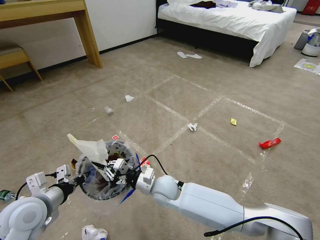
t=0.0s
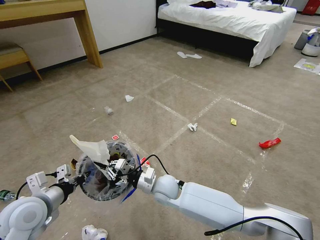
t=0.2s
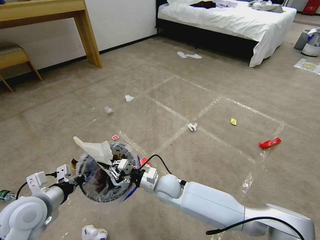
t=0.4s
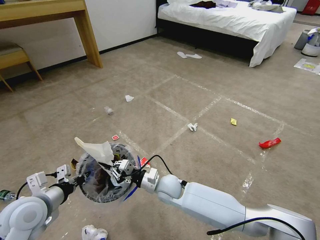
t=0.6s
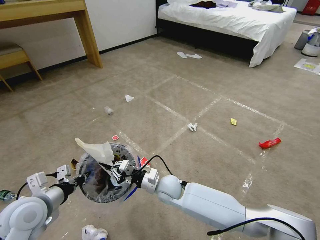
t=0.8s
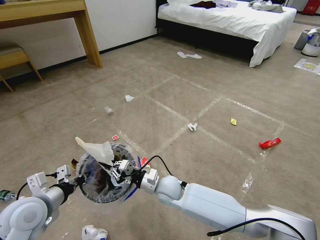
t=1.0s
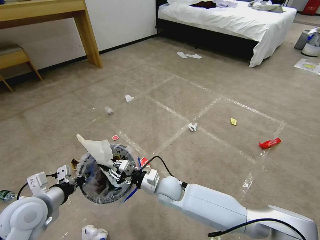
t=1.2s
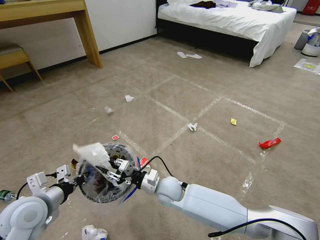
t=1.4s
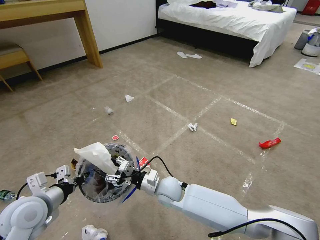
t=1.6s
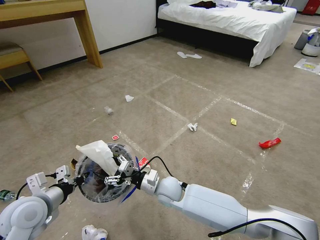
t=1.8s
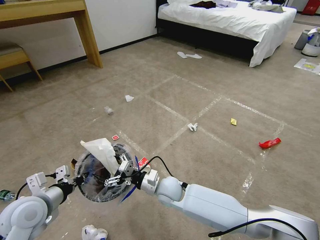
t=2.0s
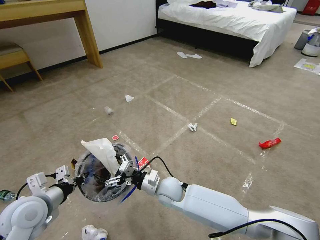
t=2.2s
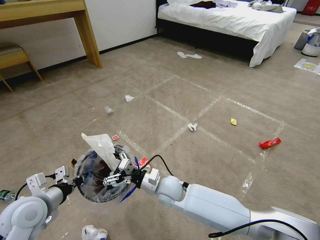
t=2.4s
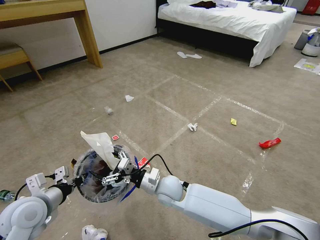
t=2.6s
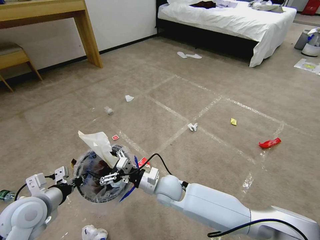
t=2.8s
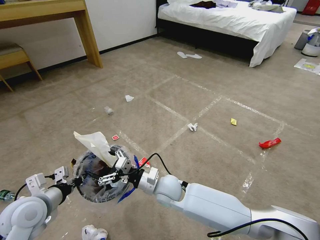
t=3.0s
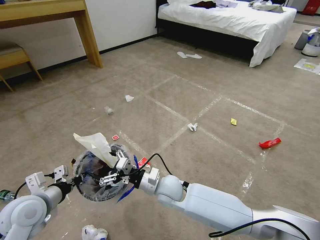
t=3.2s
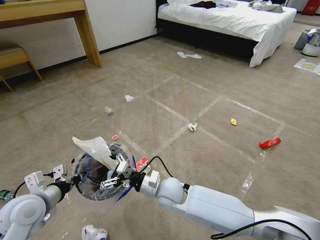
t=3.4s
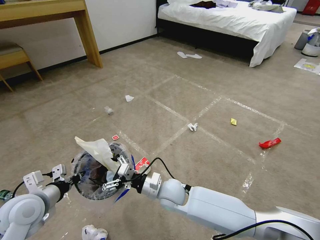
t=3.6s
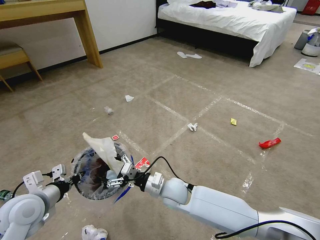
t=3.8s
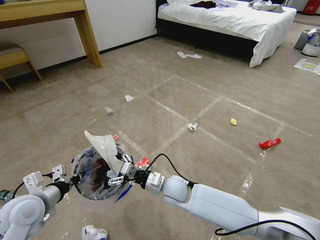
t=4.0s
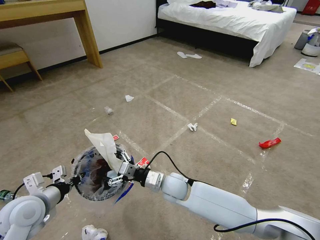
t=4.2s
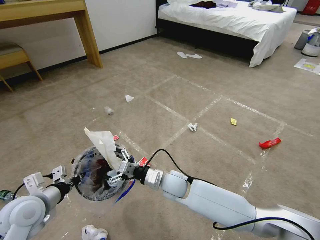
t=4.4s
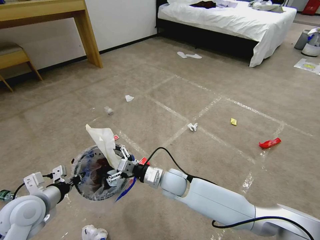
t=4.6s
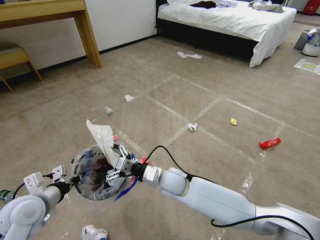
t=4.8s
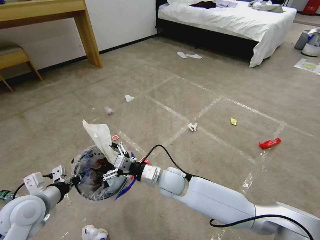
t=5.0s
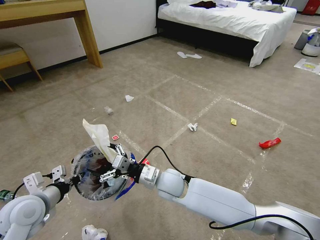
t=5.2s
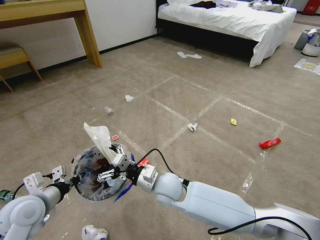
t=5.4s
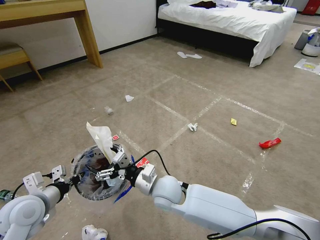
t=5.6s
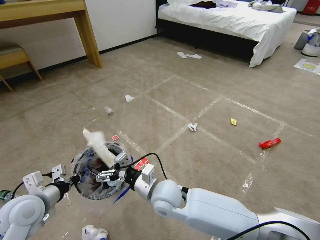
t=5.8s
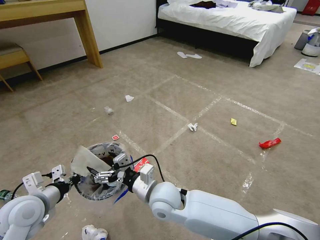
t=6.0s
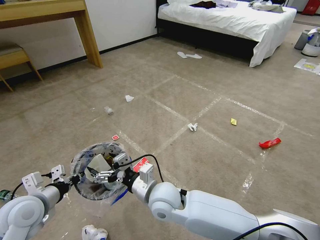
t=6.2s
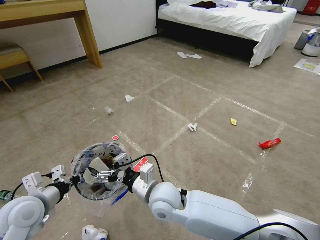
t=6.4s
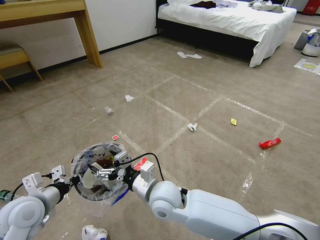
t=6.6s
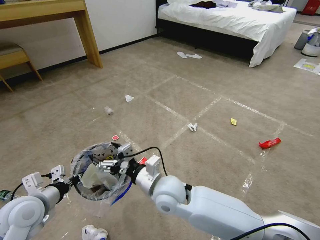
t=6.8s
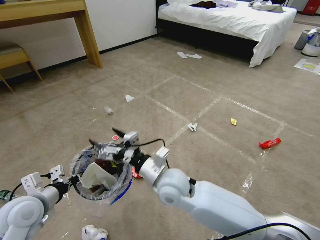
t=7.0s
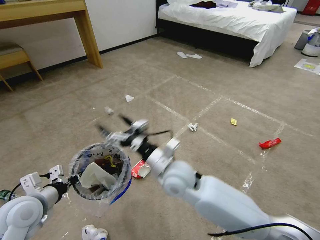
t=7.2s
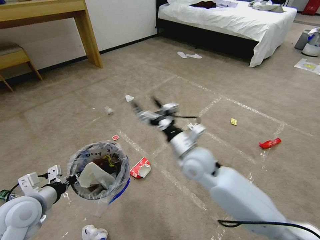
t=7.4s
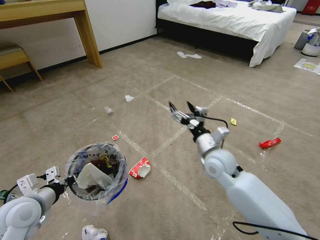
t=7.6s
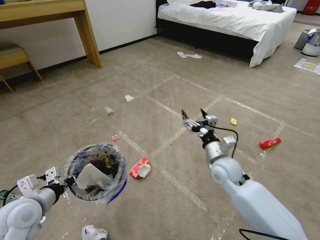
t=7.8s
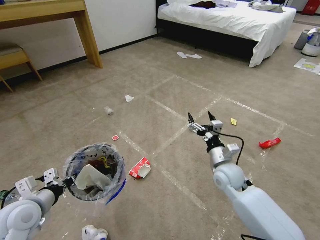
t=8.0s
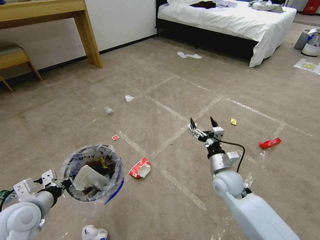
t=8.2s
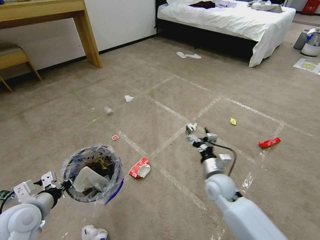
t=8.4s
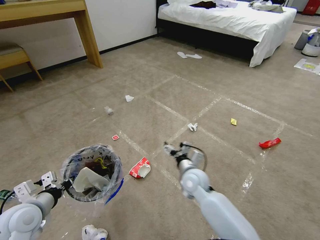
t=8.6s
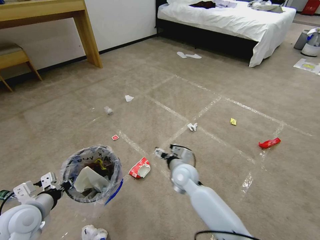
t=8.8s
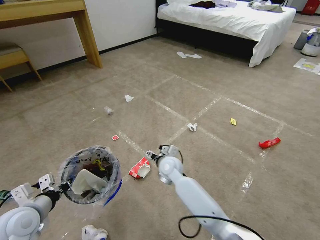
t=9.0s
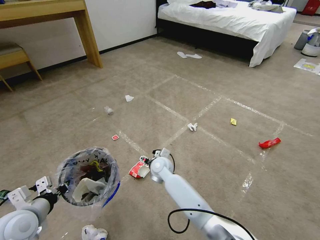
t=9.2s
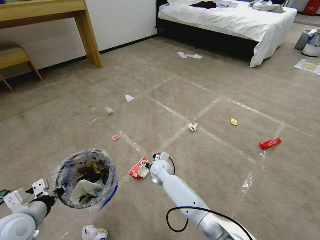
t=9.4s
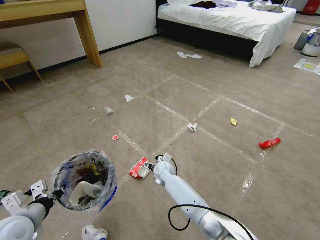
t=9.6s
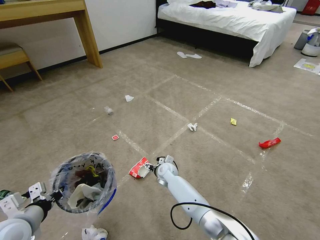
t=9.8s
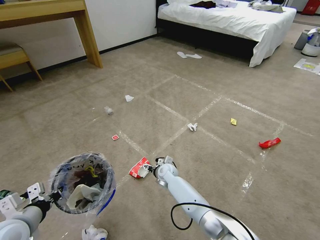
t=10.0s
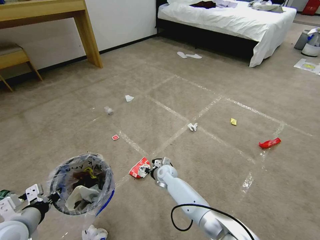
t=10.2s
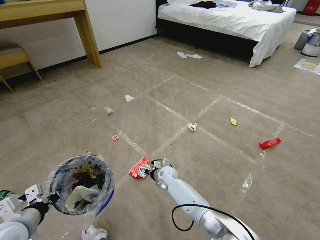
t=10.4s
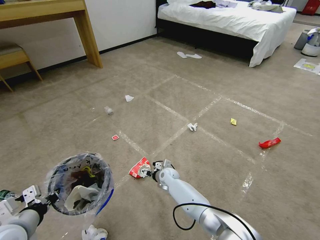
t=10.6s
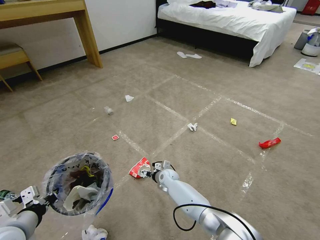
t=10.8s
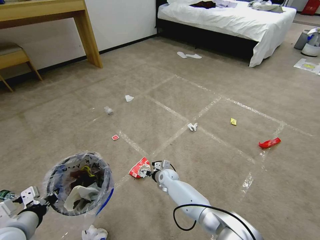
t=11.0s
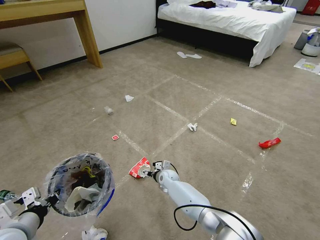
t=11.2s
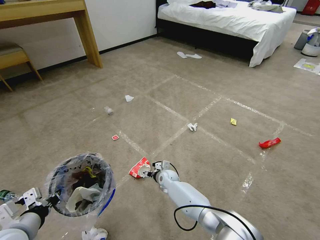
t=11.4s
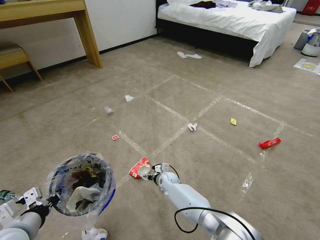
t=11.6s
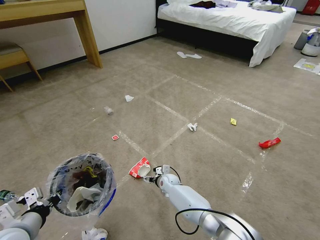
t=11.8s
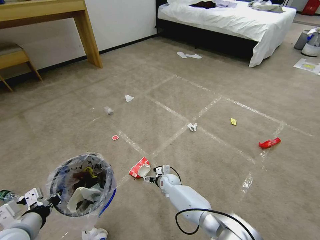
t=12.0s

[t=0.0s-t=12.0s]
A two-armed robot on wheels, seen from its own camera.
Task of the whole recording: Pick up the trash bin and place the garbage on the floor into it.
t=0.0s to t=1.6s: The right gripper opens up.
t=1.6s to t=3.0s: The grippers stay close to where they were, moving slightly.
t=4.4s to t=6.0s: The right gripper travels backward and upward by roughly 10 cm.
t=6.0s to t=7.6s: The right gripper is displaced to the right and forward by roughly 20 cm.
t=7.6s to t=9.0s: The right gripper travels to the left and downward by roughly 20 cm.
t=9.0s to t=10.4s: The right gripper goes approximately 15 cm downward.
t=10.4s to t=12.0s: The grippers make only small movements.

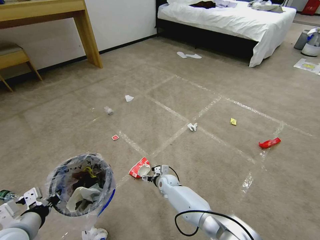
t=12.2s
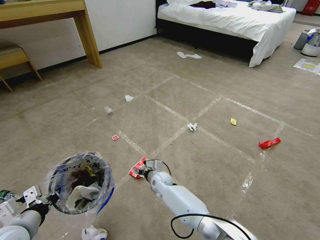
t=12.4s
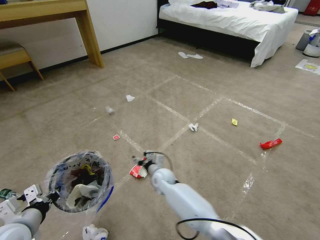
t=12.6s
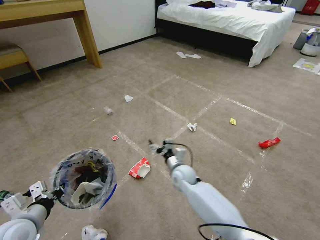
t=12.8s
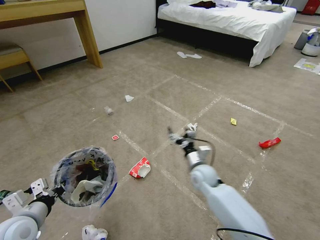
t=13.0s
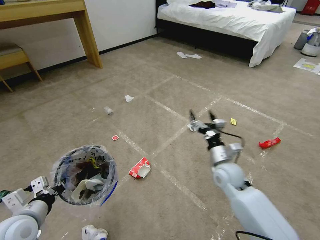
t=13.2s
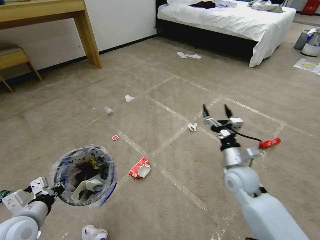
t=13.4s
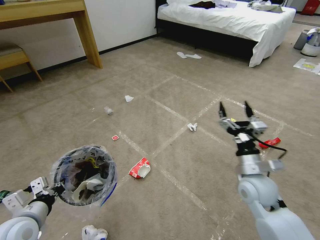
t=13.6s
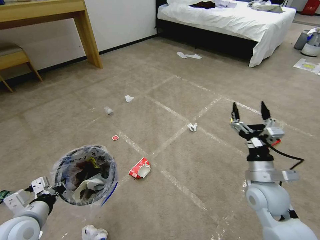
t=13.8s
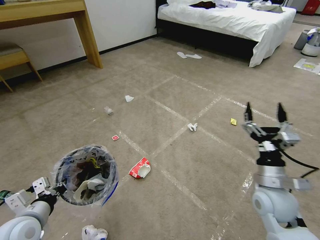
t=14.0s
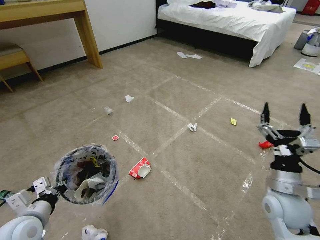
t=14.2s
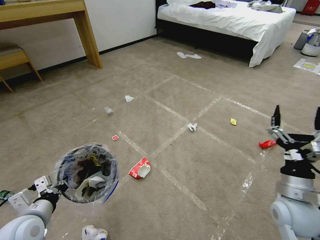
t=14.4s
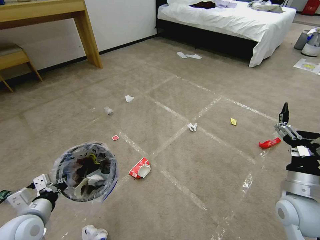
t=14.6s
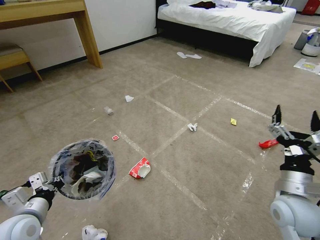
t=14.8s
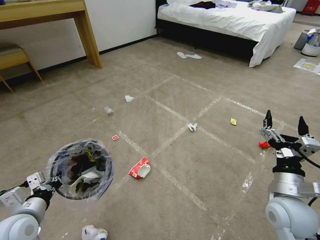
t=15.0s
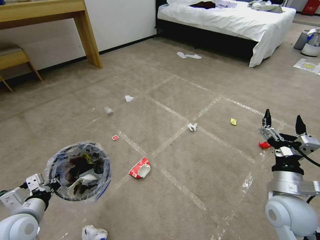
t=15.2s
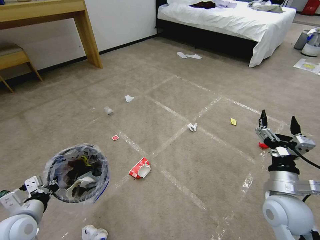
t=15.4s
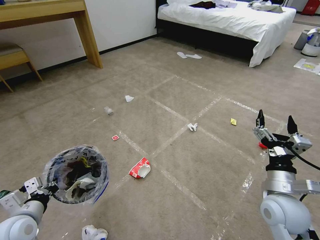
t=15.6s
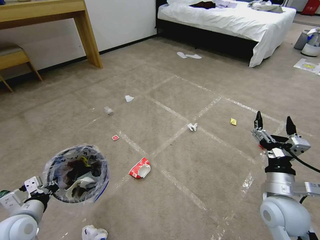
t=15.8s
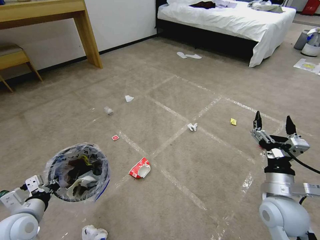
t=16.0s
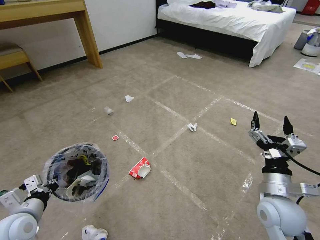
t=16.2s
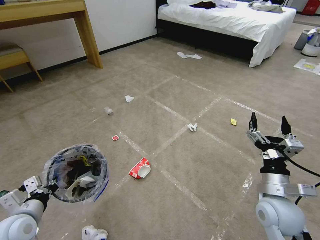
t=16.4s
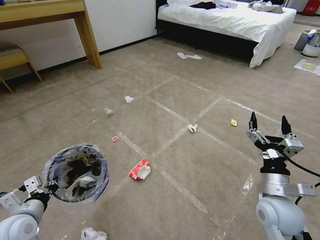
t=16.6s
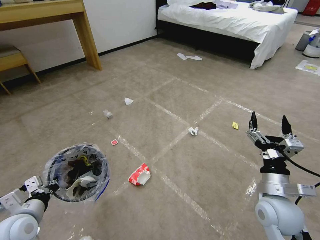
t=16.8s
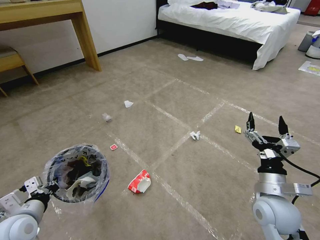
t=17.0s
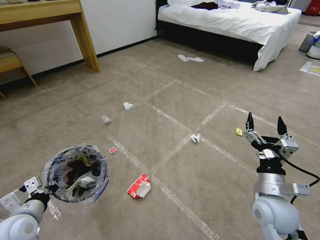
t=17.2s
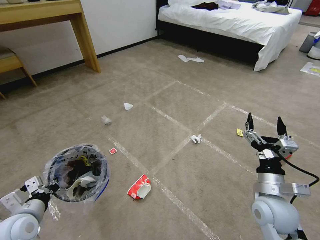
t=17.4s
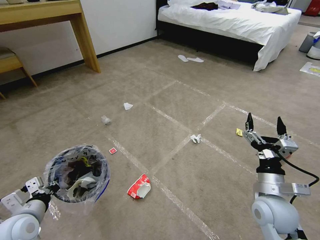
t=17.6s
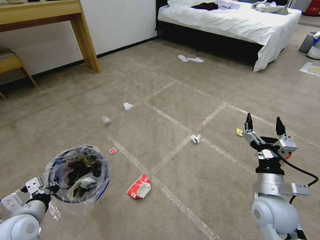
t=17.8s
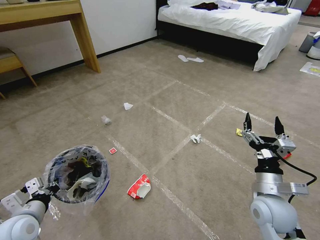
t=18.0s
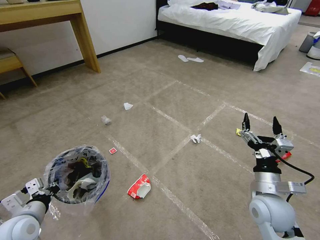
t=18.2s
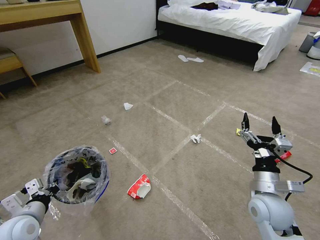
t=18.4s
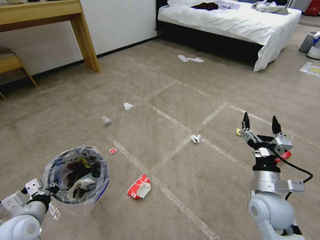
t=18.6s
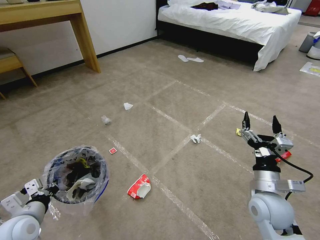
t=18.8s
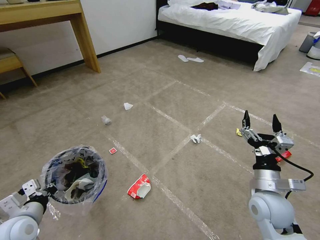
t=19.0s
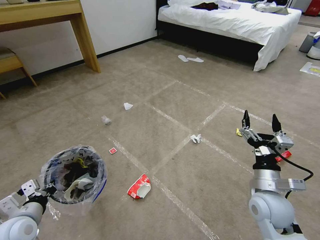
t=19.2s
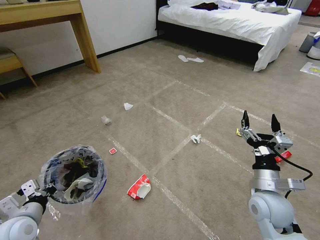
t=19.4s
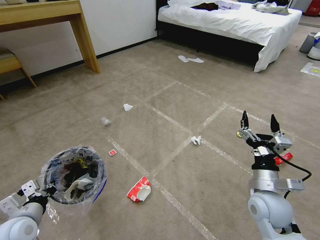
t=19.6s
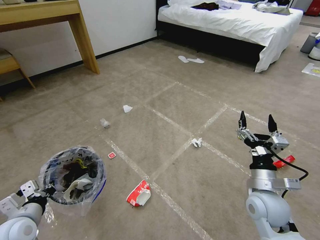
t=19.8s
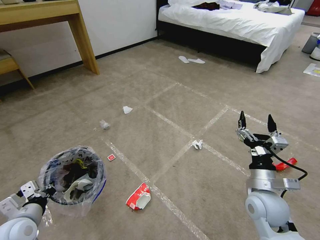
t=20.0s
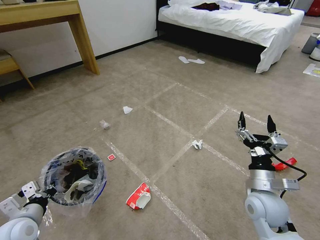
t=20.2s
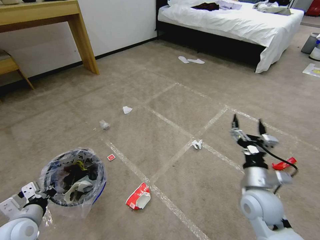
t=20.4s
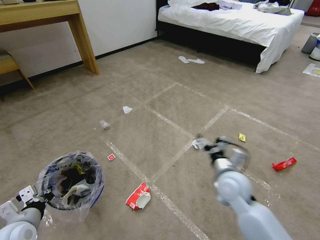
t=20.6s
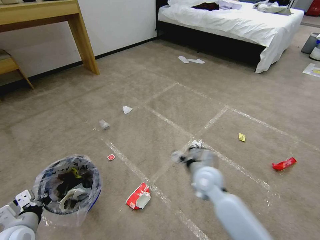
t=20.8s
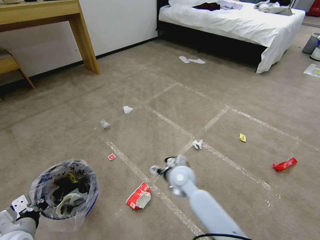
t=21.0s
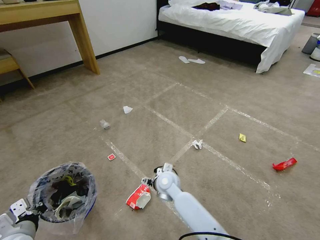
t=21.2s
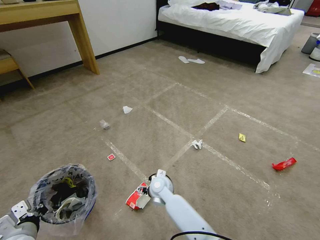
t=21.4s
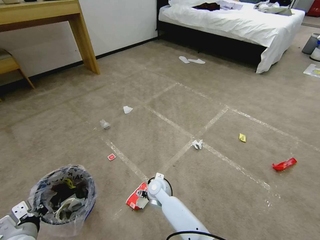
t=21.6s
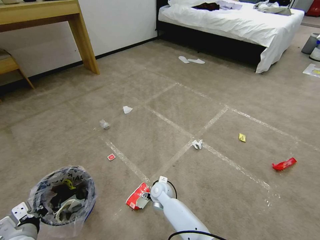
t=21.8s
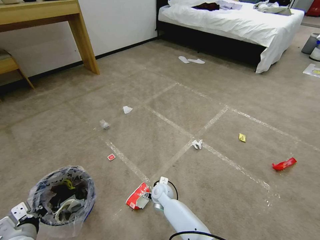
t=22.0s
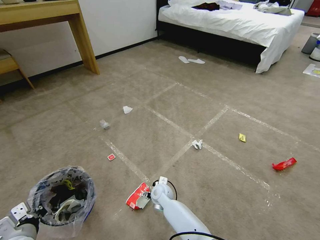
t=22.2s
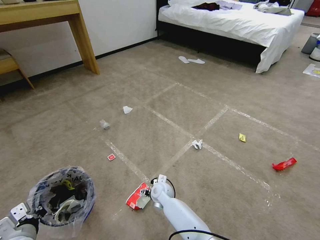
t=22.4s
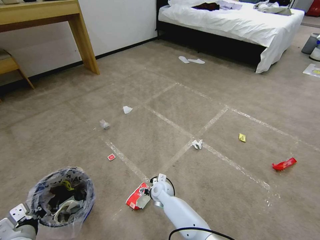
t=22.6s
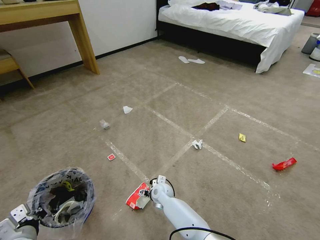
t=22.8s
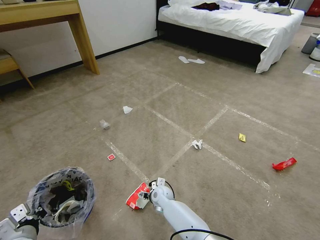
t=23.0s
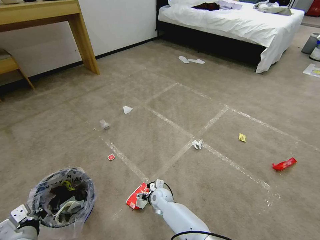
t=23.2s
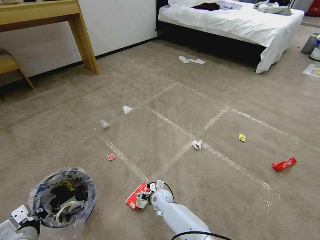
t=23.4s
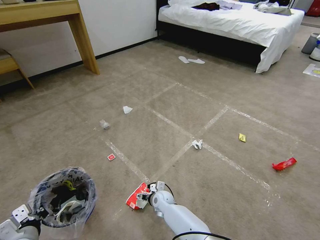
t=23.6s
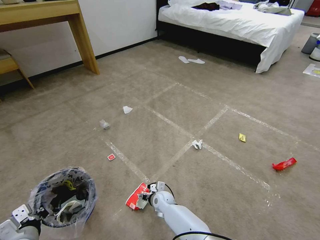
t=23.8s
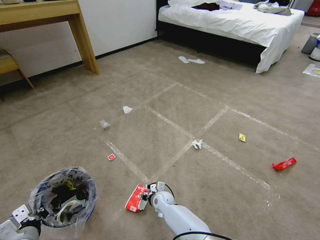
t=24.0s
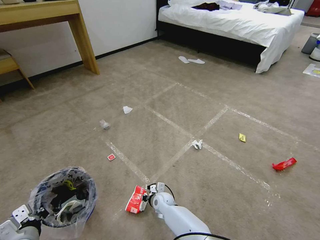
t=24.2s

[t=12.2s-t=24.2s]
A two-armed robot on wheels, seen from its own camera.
Task of the whole recording: Pick up the trash bin and place the garbage on the floor into it.
t=12.2s to t=13.8s: The right gripper shifts approximately 40 cm to the right, upward and backward.
t=13.8s to t=15.2s: The right gripper heads backward, covering approximately 5 cm.
t=15.2s to t=18.2s: The grippers stay close to where they were, moving slightly.
t=18.2s to t=19.8s: Both grippers stay put.
t=19.8s to t=21.2s: The right gripper moves to the left, forward and downward, some 30 cm.
t=21.2s to t=22.6s: The right gripper shifts about 10 cm downward.
t=22.6s to t=24.2s: The right gripper heads downward, covering some 5 cm, and closes.
